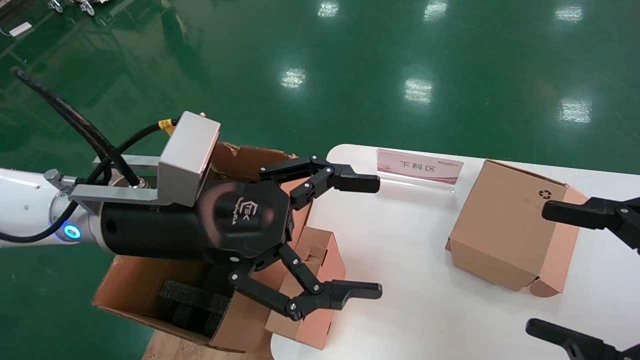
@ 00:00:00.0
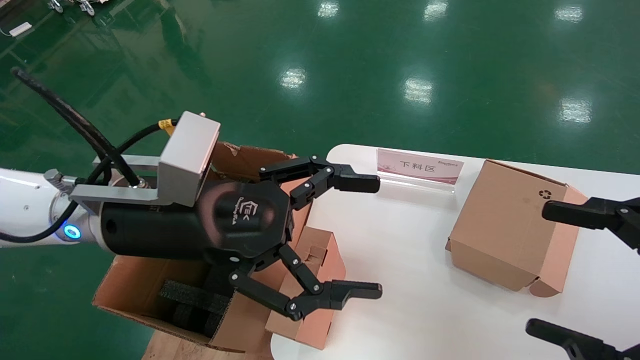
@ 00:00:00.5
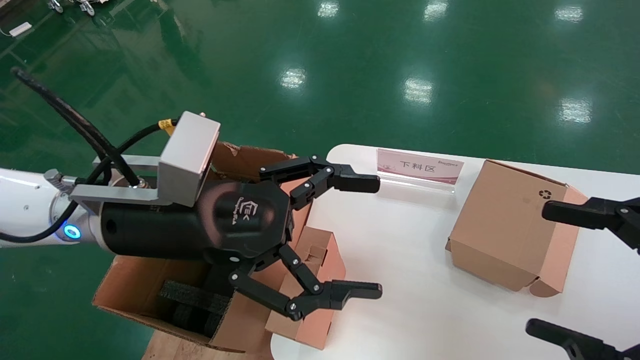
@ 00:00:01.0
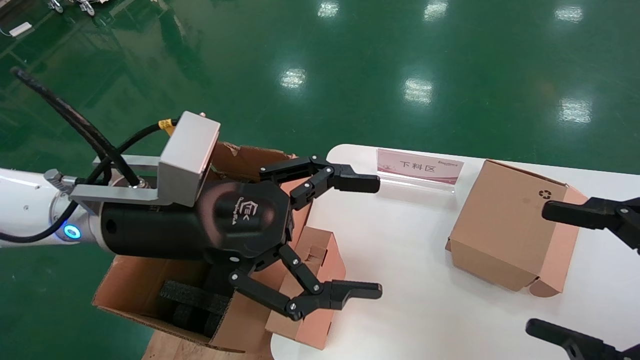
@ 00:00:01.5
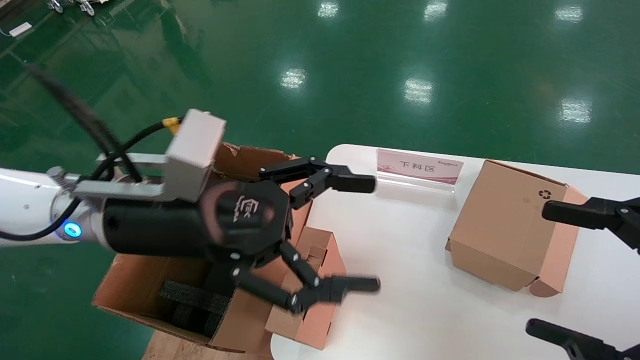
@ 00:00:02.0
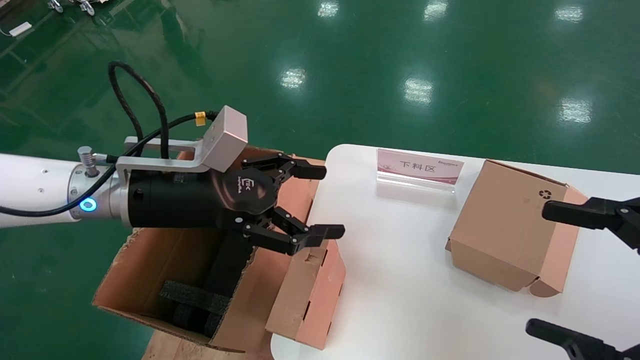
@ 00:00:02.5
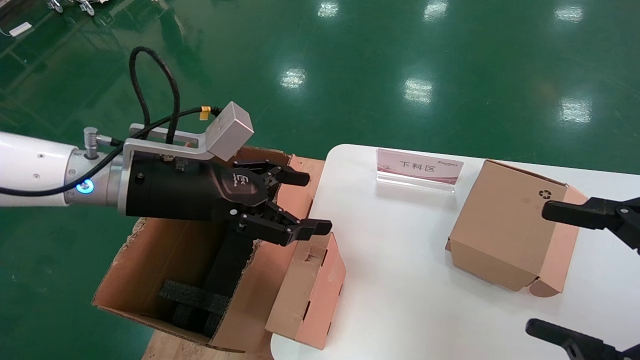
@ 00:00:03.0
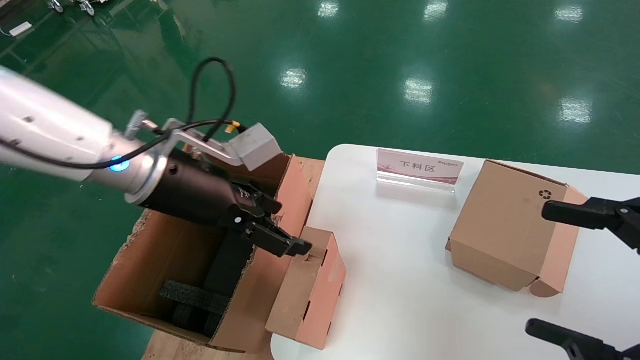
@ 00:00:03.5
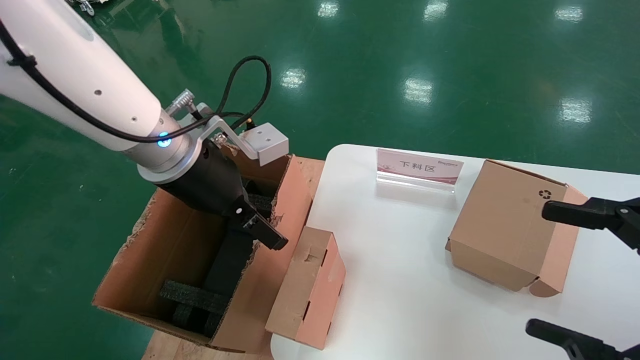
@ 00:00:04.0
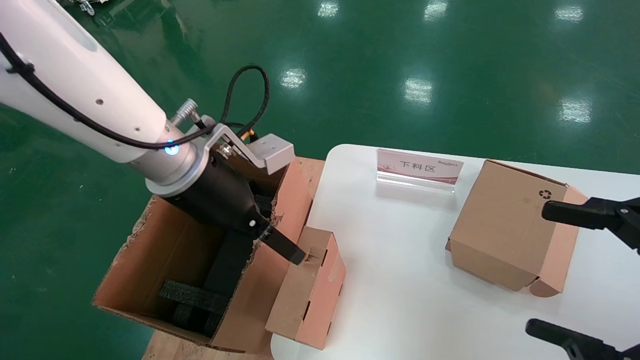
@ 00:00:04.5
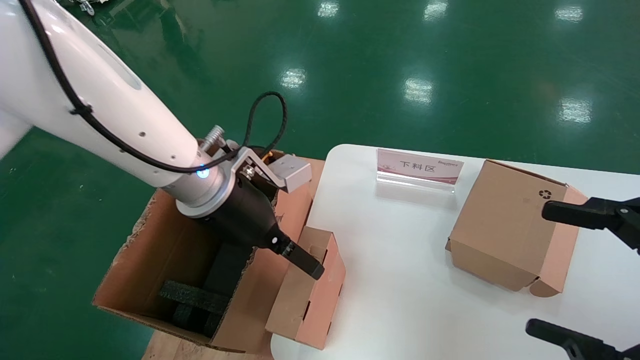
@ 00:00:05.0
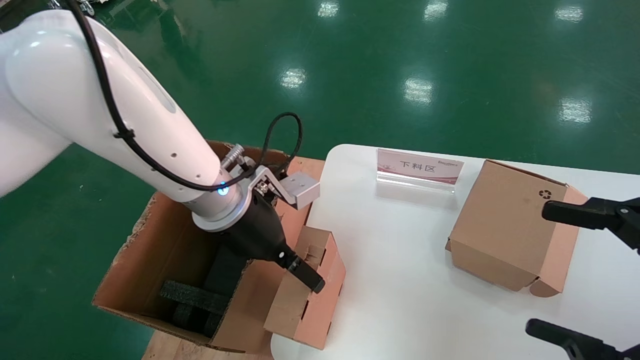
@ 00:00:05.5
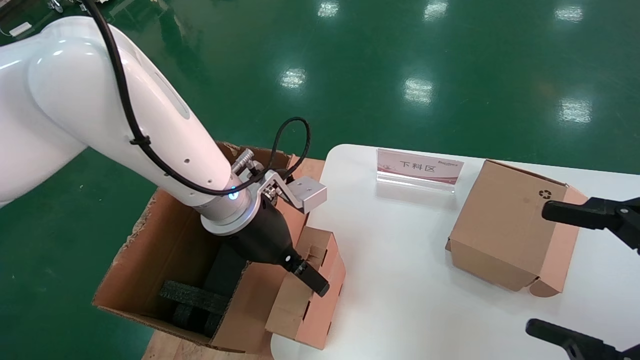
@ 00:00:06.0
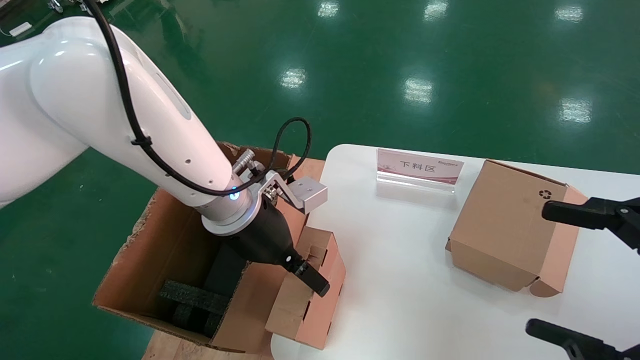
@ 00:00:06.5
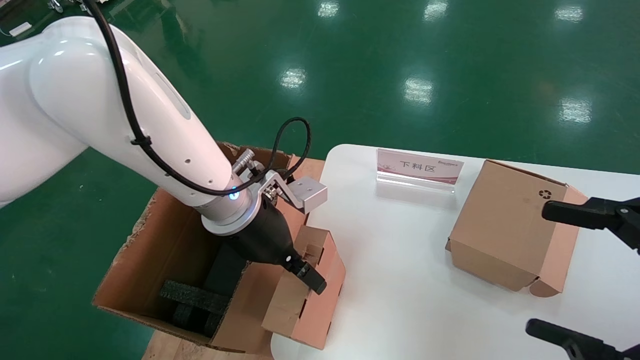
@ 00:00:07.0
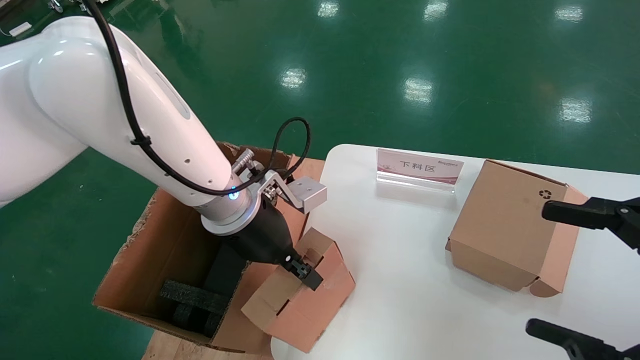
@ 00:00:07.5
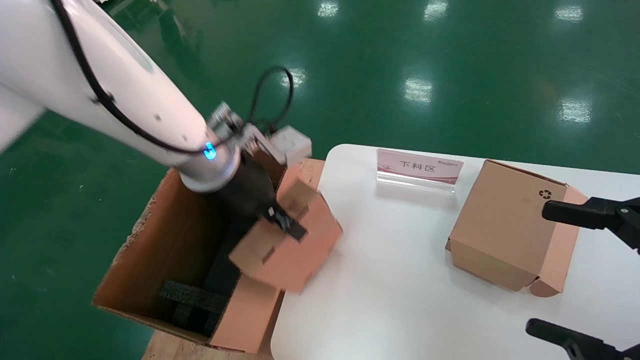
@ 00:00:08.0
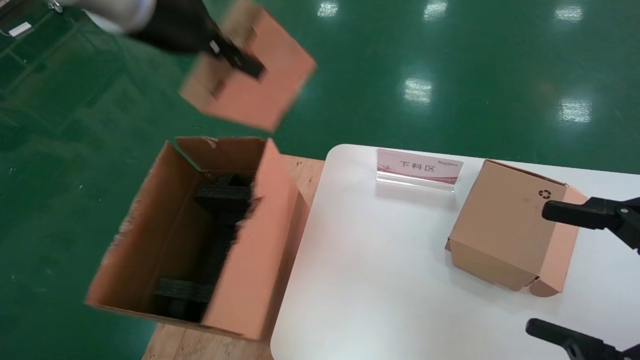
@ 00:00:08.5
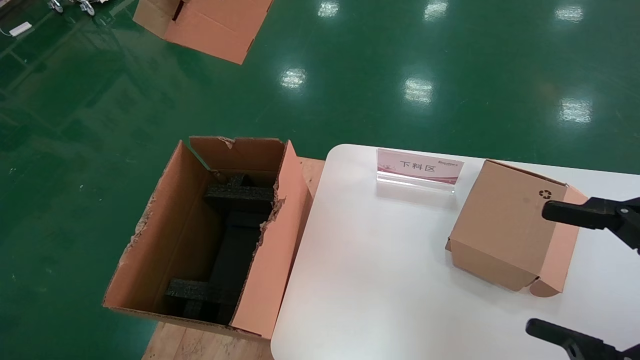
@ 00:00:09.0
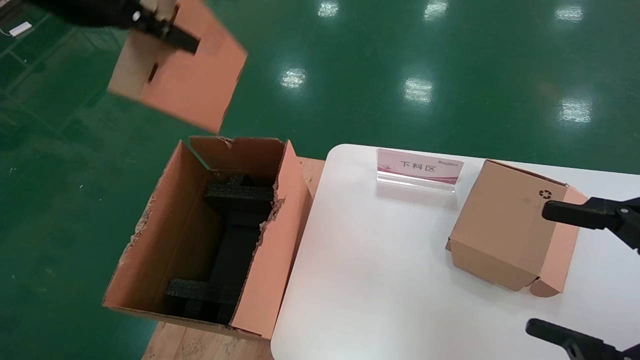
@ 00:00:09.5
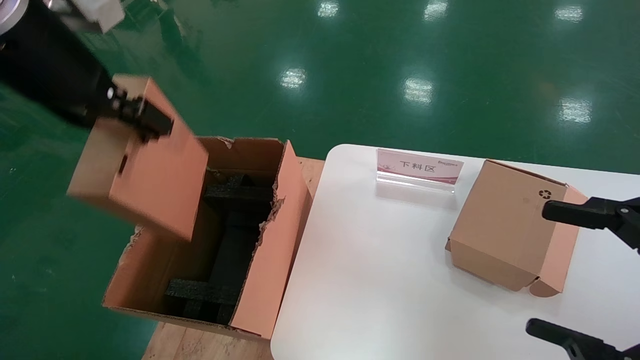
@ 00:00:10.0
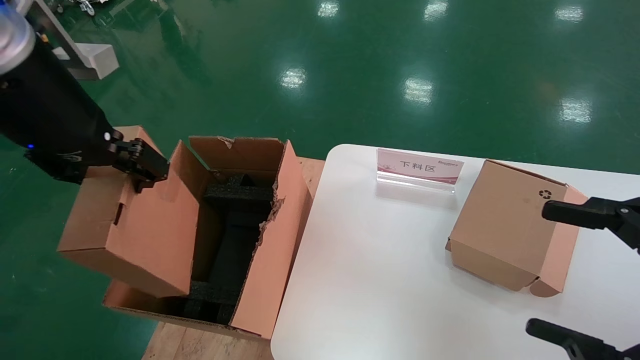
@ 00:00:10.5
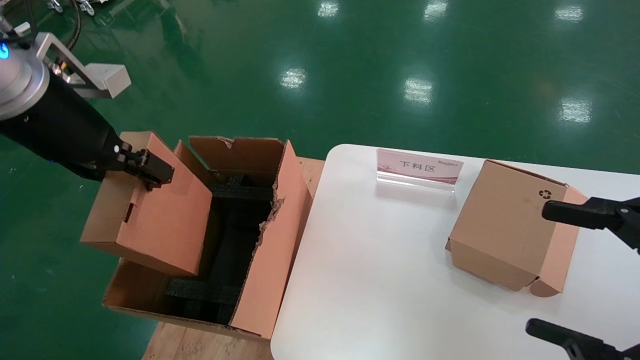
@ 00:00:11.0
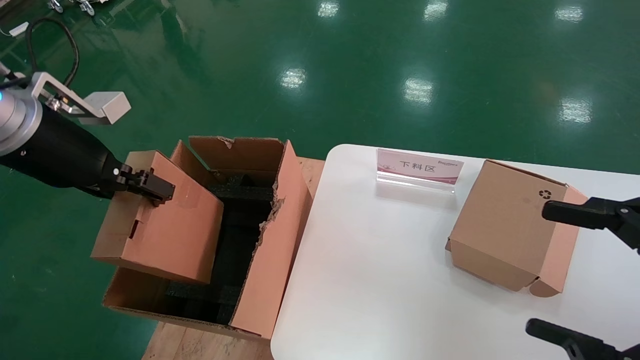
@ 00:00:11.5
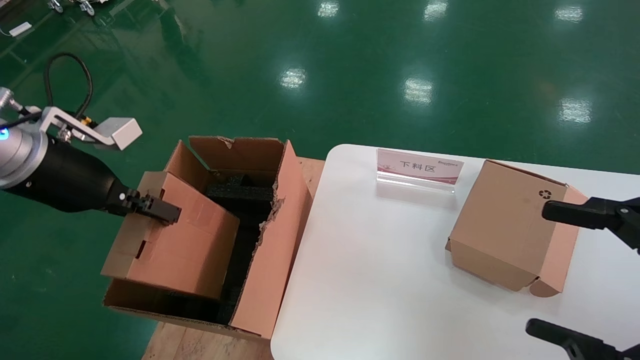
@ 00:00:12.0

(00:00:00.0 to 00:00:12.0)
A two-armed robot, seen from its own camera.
Task of the whole recording: put the box on the table into the big box.
Step, 00:00:00.0 - 00:00:07.0: Grasp the paper box.
00:00:00.0 - 00:00:02.0: The grippers make only small movements.
00:00:02.0 - 00:00:04.0: The left gripper moves some 5 cm.
00:00:04.0 - 00:00:06.0: The left gripper travels downward by roughly 5 cm.
00:00:06.0 - 00:00:08.0: The left gripper is displaced upward by approximately 5 cm, and closes its fingers.
00:00:08.0 - 00:00:10.0: The left gripper heads upward, backward and to the left, covering about 20 cm.
00:00:10.0 - 00:00:12.0: The left gripper is displaced downward and to the left by approximately 15 cm.

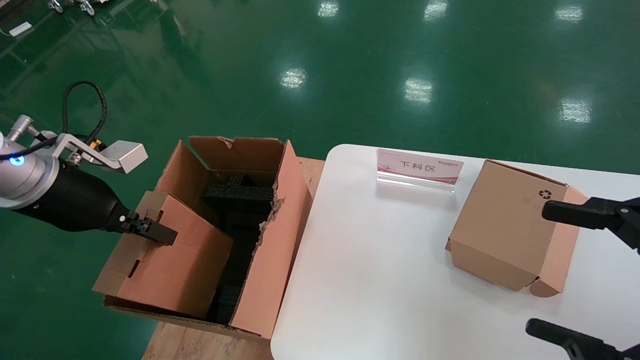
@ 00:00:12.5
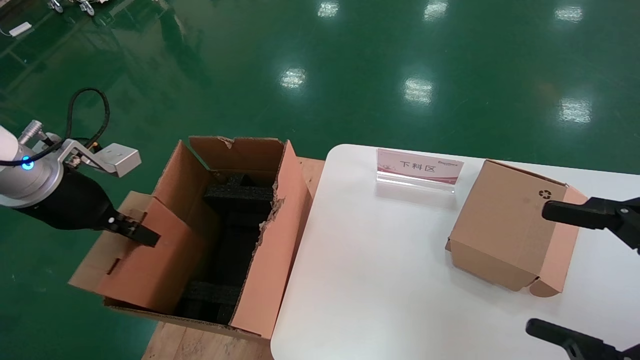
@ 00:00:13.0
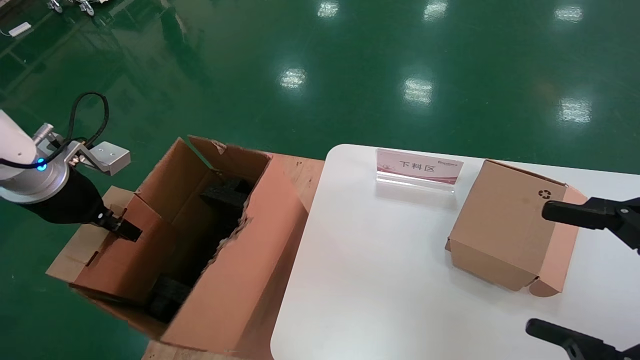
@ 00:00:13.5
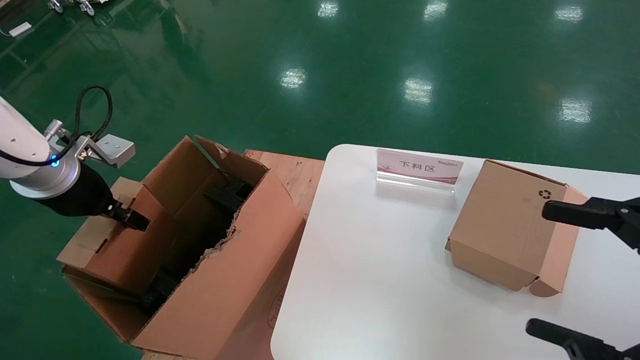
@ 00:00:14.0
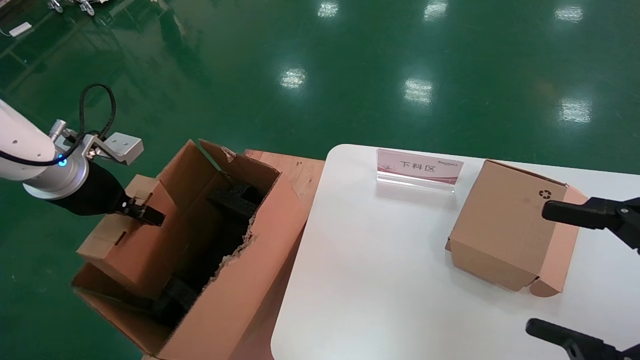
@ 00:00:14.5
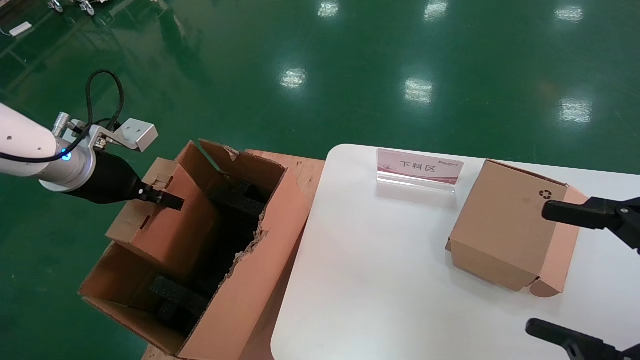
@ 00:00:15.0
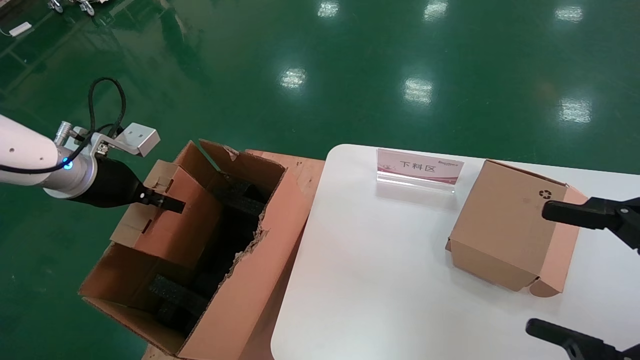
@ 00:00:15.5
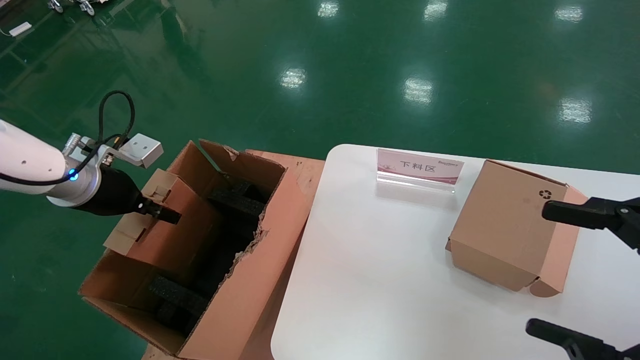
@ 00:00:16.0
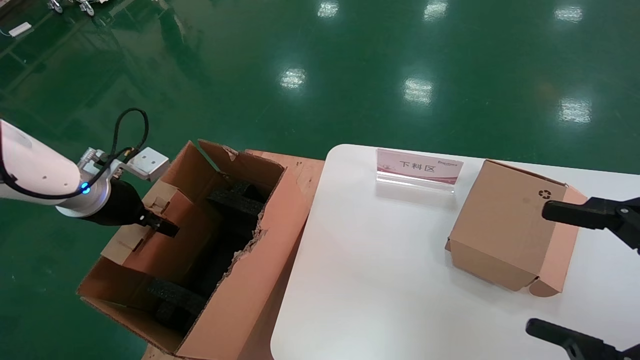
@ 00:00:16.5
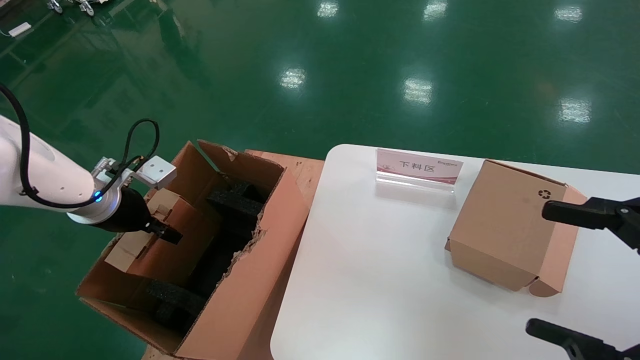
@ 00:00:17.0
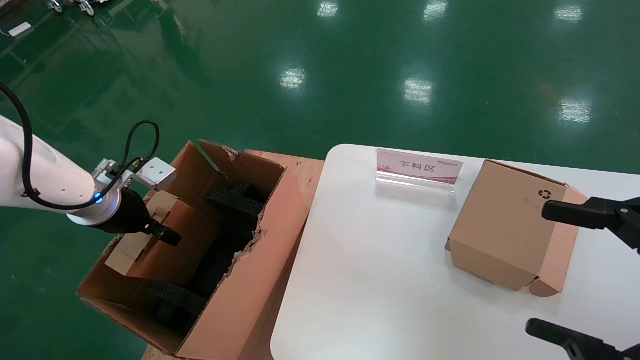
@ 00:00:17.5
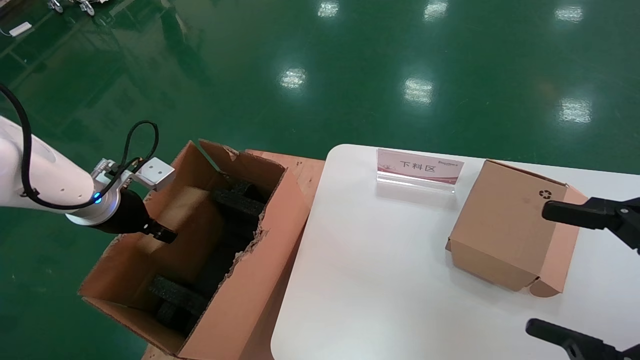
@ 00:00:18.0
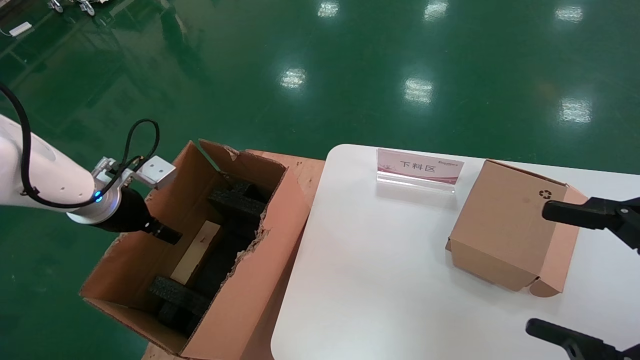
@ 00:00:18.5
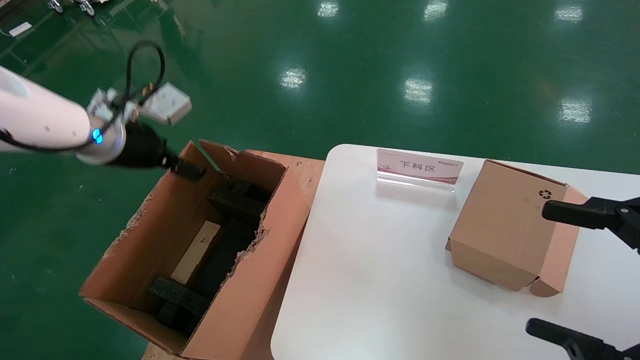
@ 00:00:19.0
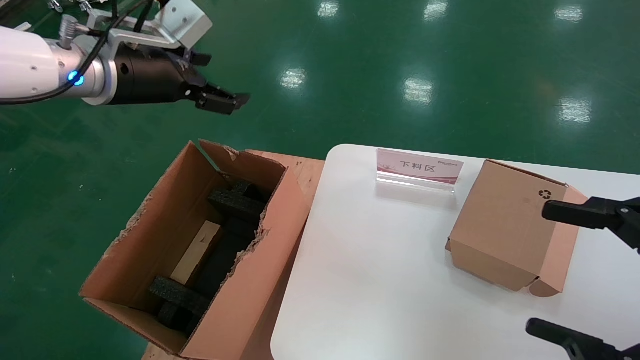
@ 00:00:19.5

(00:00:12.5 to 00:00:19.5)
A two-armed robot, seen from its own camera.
Task of the whole recording: put the box on the table into the big box.
Step, 00:00:12.5 - 00:00:18.0: Place the paper box in the another big box.
00:00:12.5 - 00:00:14.5: The left gripper ends up some 5 cm from where it was.
00:00:14.5 - 00:00:16.0: The grippers make only small movements.
00:00:16.0 - 00:00:17.5: The grippers move only a little.
00:00:17.5 - 00:00:19.5: The left gripper is displaced upward and to the right by some 20 cm, and opens up.
